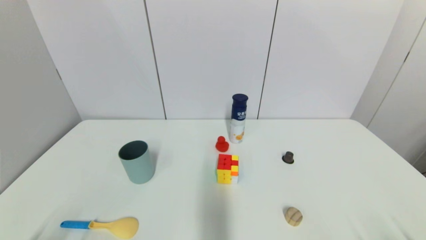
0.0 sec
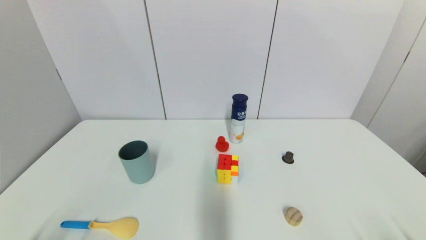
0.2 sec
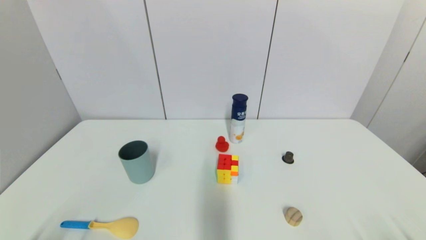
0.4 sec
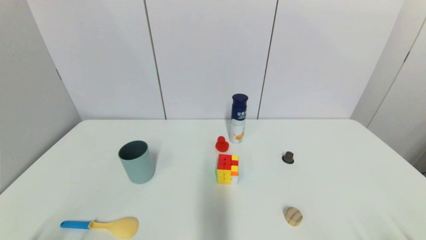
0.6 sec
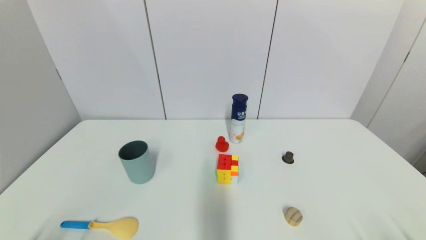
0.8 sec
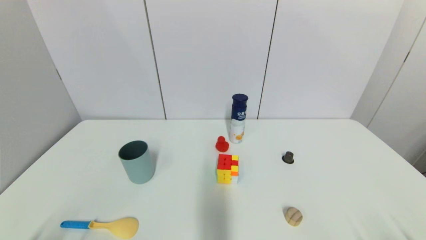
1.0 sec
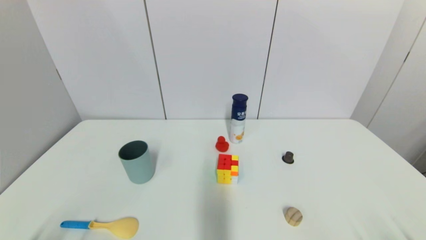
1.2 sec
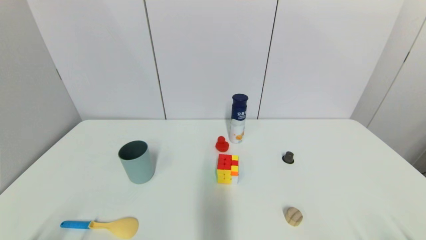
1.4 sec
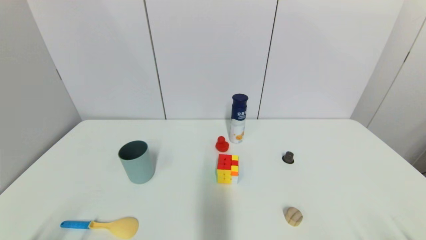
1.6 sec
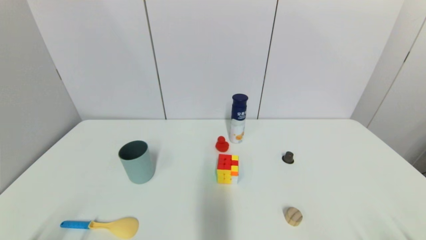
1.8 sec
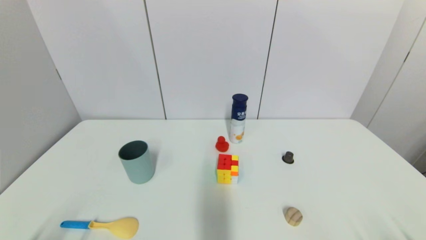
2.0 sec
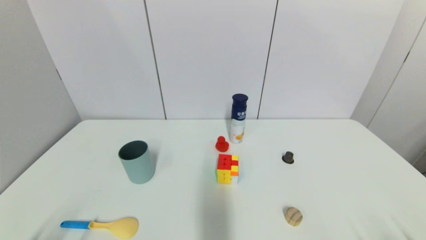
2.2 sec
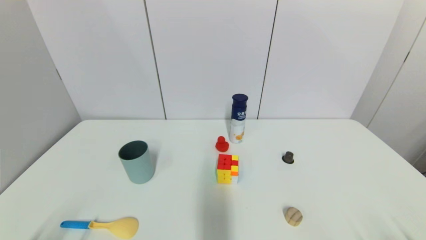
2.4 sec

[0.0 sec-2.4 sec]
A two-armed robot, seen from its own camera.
0.0 sec to 2.4 sec: Both grippers stay about where they are.
